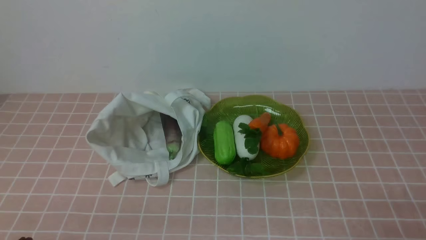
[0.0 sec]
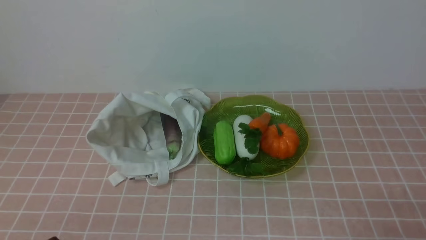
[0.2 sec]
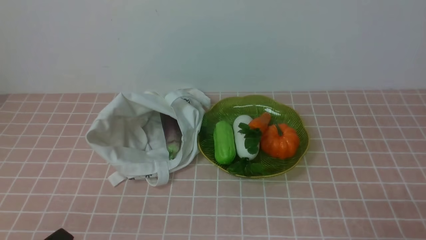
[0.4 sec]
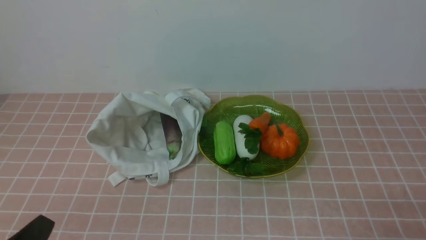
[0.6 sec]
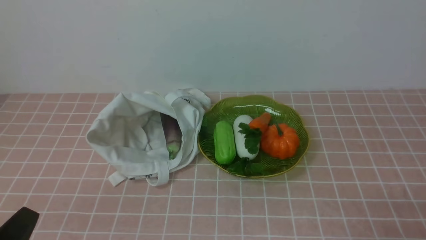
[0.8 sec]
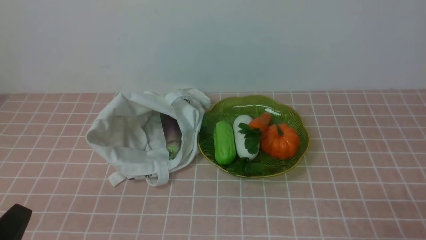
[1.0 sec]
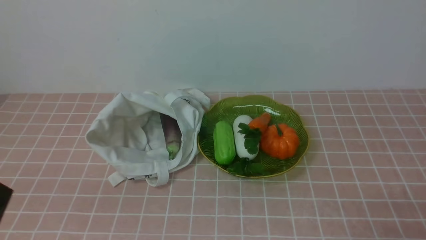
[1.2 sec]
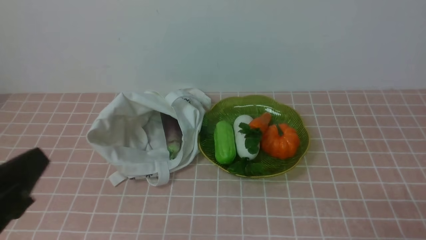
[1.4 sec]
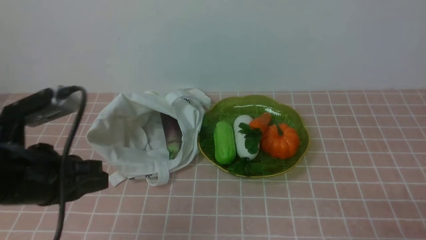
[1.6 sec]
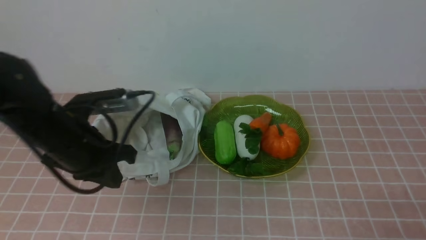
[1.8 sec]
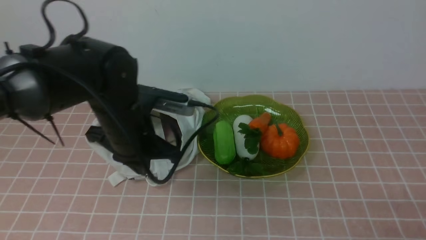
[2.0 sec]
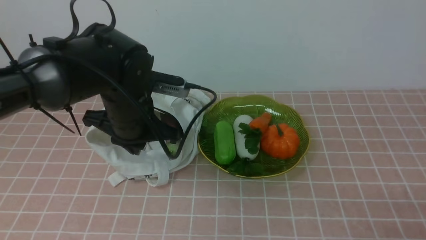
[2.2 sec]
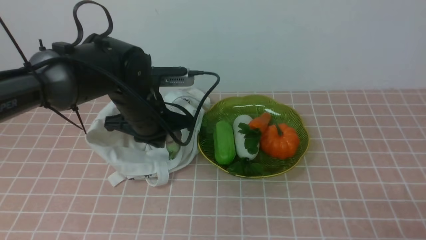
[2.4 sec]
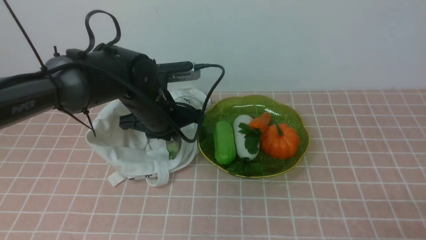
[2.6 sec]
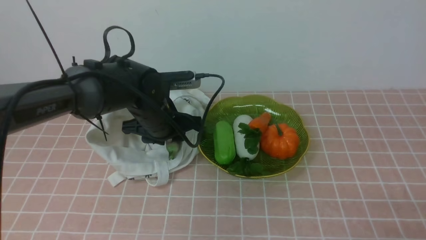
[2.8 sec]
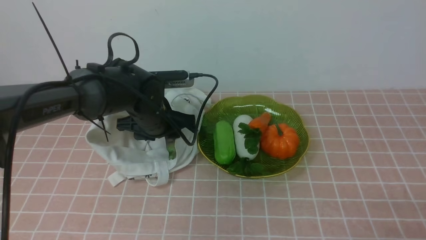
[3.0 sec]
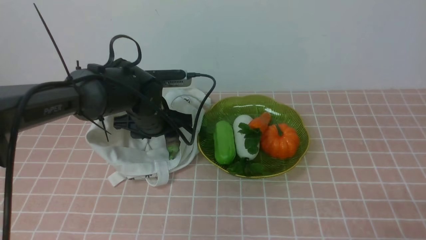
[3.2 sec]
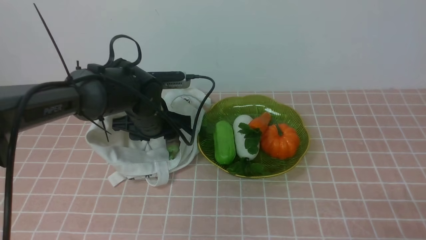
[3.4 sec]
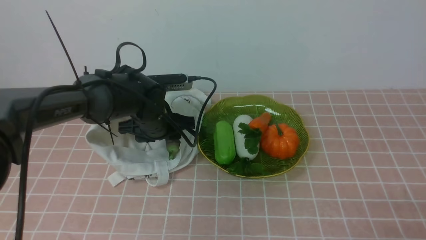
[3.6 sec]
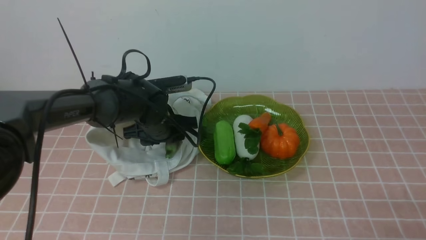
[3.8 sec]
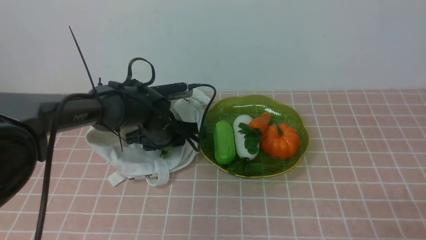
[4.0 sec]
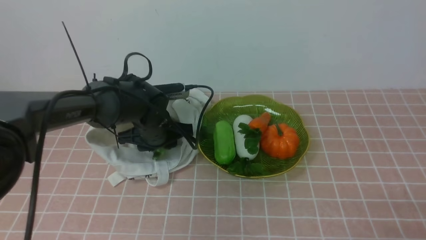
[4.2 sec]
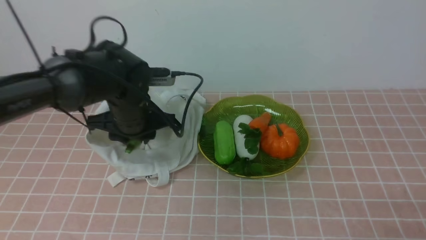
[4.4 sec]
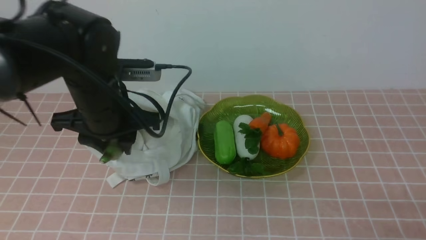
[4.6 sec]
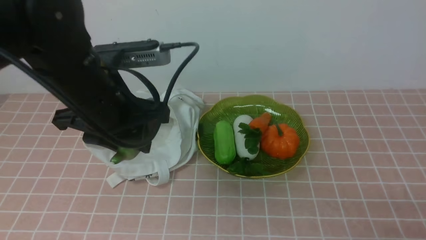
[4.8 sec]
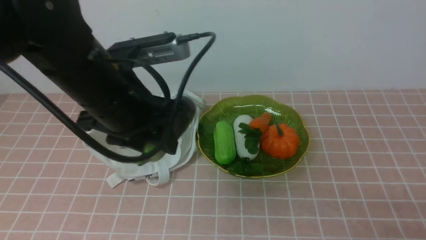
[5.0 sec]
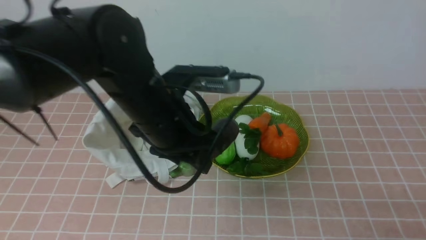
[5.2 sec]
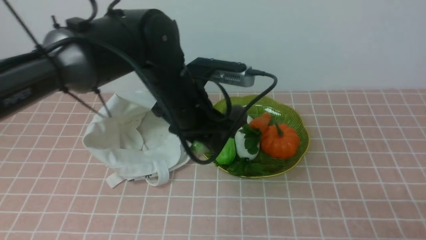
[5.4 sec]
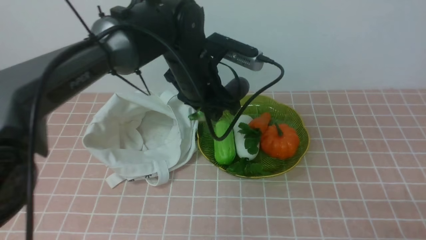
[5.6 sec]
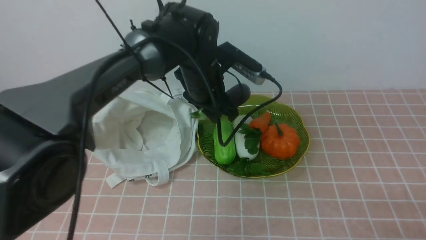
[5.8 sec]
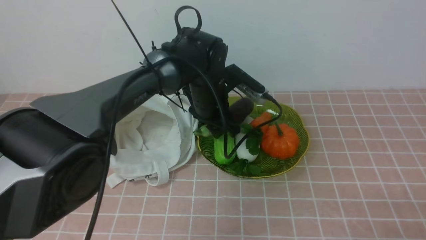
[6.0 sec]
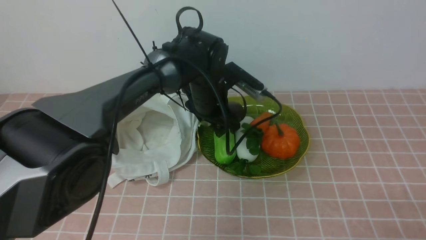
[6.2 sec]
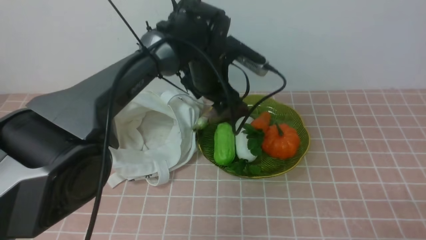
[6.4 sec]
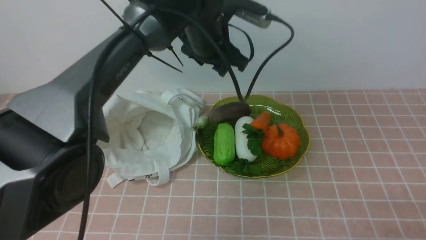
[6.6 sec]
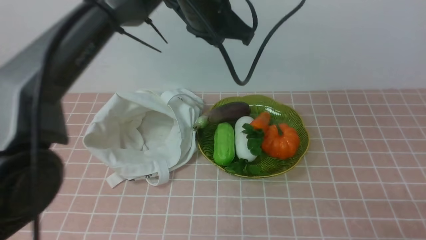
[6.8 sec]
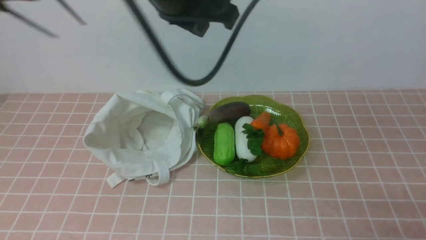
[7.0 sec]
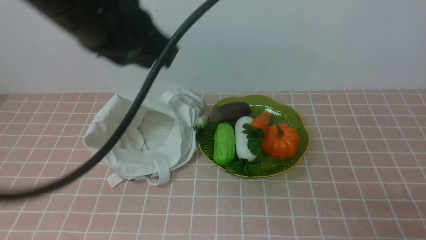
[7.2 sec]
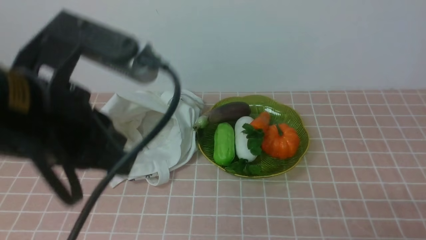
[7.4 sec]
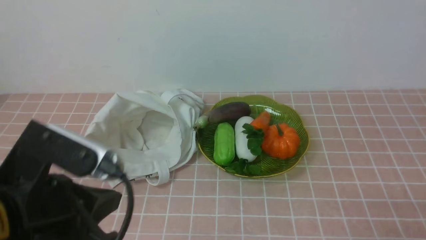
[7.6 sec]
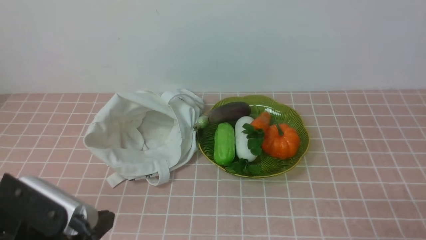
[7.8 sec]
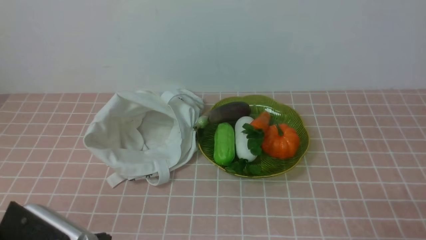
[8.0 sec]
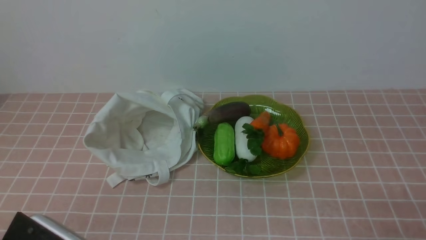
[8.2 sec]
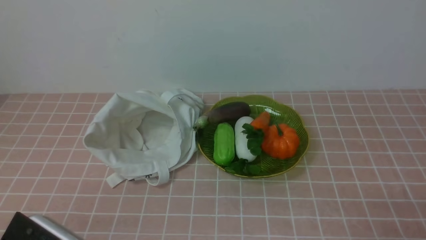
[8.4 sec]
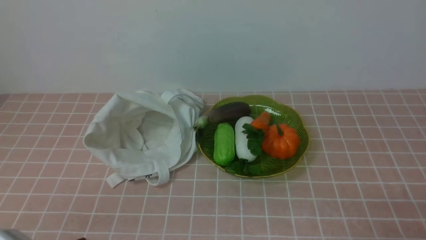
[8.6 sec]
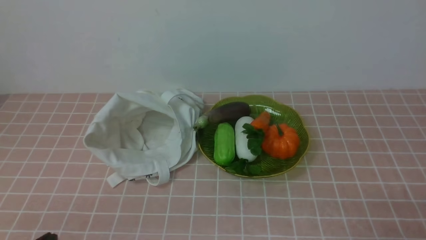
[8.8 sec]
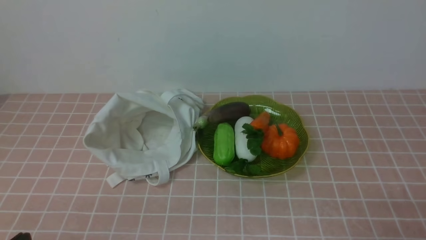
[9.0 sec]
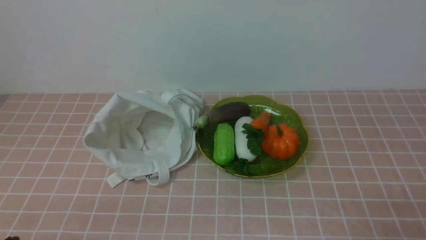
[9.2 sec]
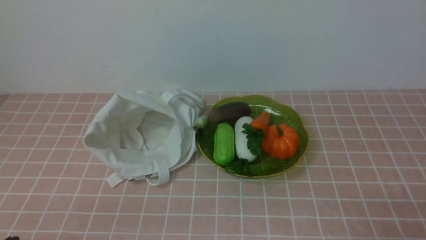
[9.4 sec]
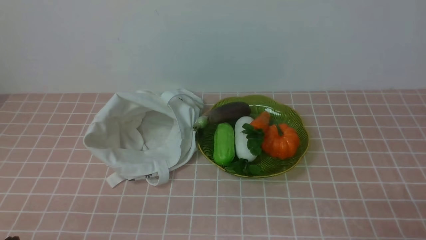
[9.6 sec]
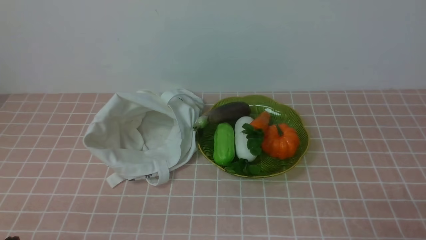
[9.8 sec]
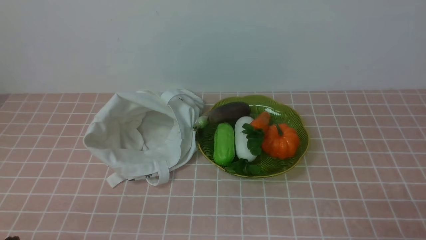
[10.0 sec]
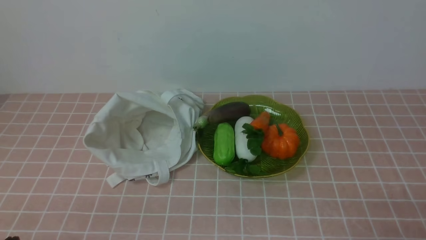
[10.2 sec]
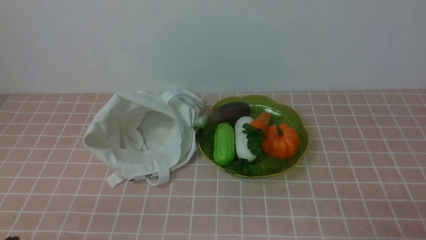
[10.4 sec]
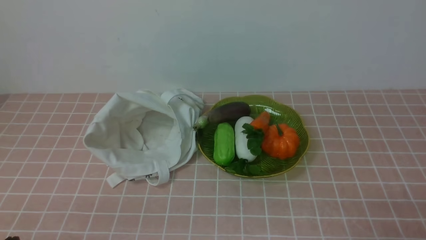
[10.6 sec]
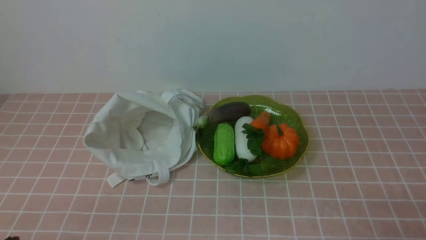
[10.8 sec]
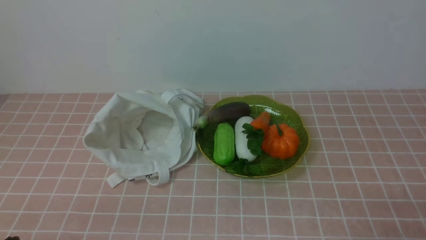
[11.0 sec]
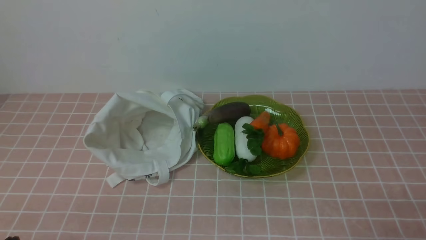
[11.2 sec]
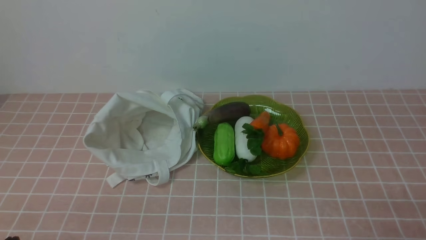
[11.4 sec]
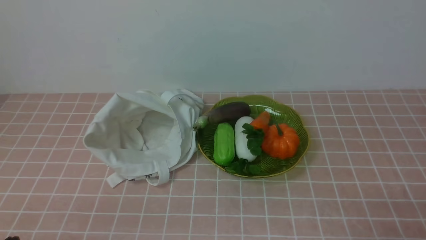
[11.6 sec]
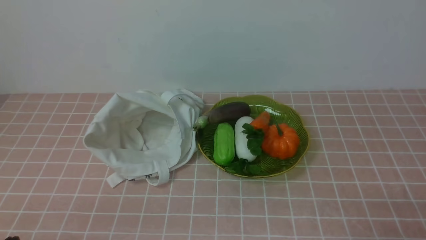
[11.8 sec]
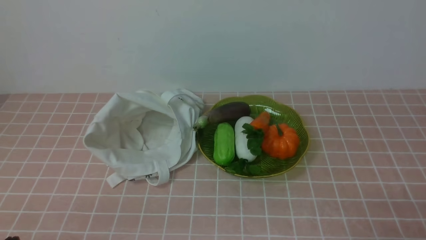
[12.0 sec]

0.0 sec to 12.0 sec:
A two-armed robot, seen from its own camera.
Task of the whole recording: take vegetables from bag on pink coffee tablecloth place on plate.
Step, 0.0 sec to 4.0 sec: Grasp the eggplant with left gripper.
Step, 4.4 sec to 6.4 sec: Place the eggplant on the plate with left gripper.
1.6 sec to 3.0 sec: The left gripper travels forward, to the right and downward by approximately 25 cm, and opens its fingers.
3.0 sec to 4.4 sec: The grippers move only a little.
4.4 sec to 6.0 sec: The left gripper heads to the right and forward, covering some 10 cm.
6.0 sec to 7.6 sec: The left gripper goes roughly 30 cm backward and to the left, and closes up.
7.6 sec to 9.0 sec: The left gripper is displaced downward, backward and to the left by about 20 cm.
10.4 sec to 12.0 sec: Both grippers stay put.
